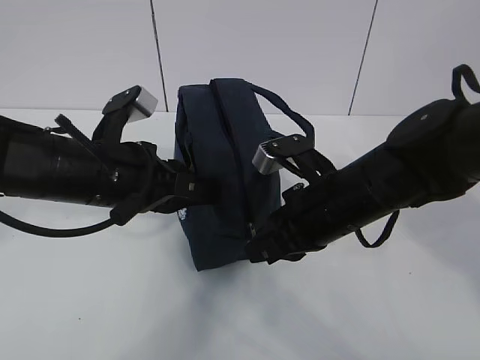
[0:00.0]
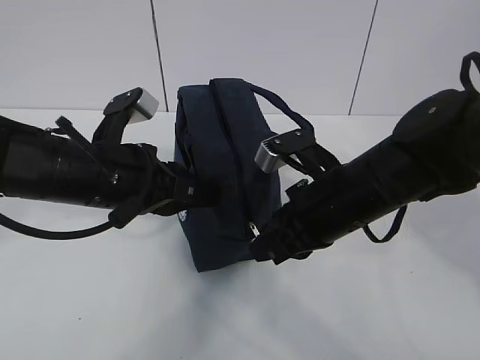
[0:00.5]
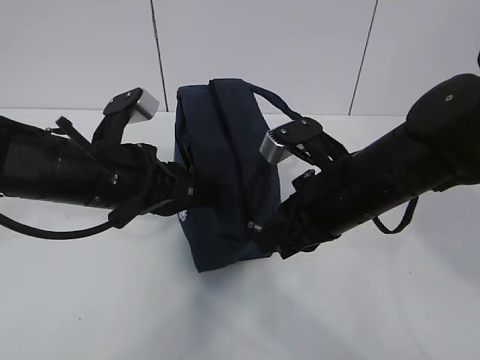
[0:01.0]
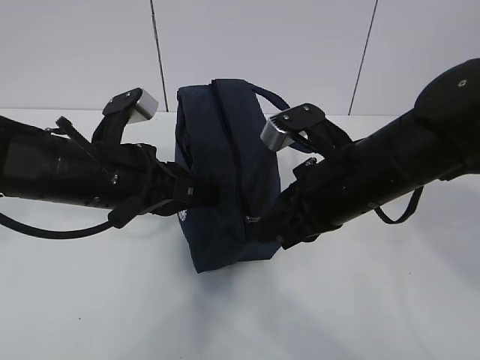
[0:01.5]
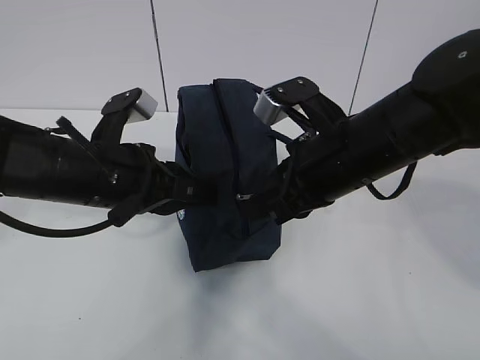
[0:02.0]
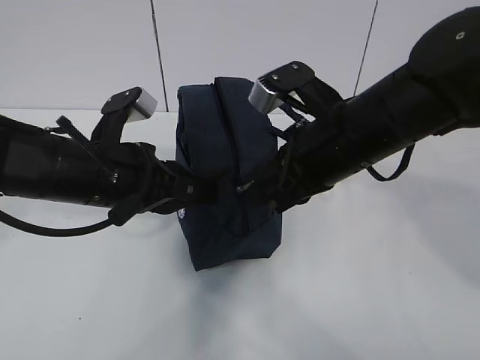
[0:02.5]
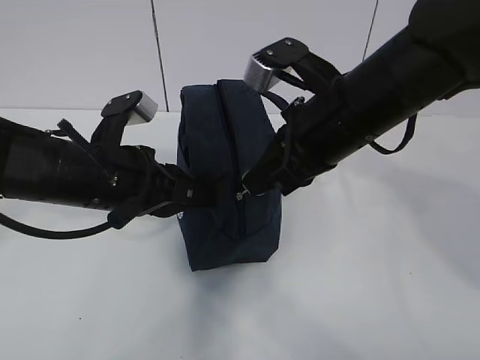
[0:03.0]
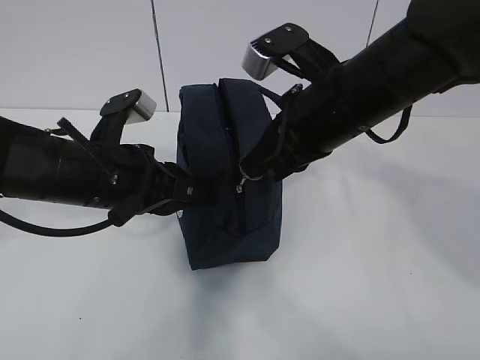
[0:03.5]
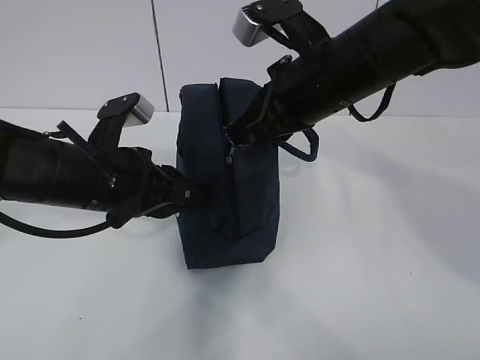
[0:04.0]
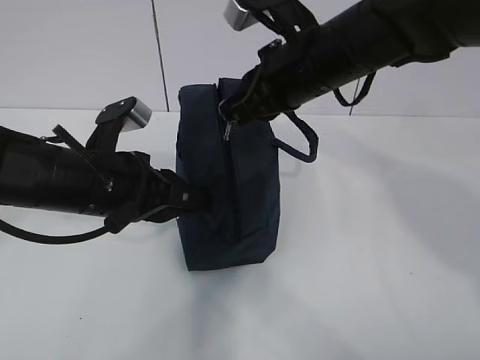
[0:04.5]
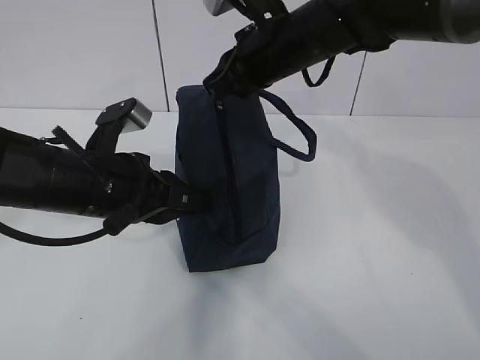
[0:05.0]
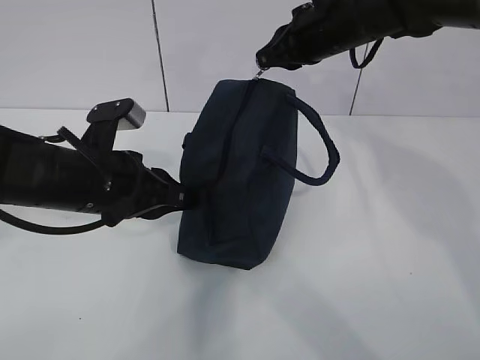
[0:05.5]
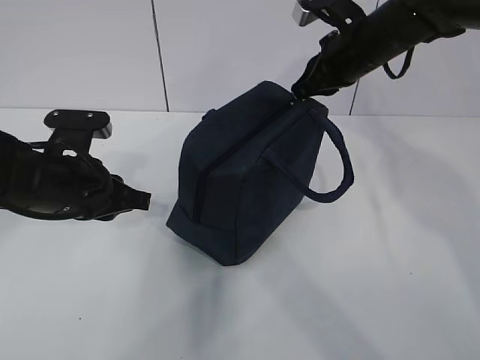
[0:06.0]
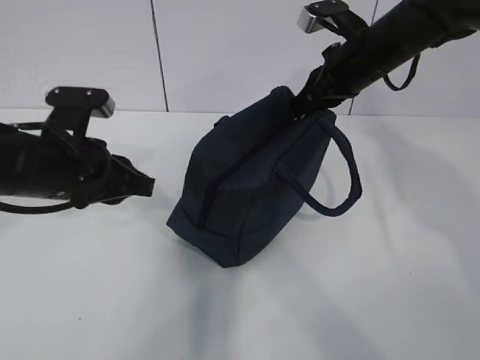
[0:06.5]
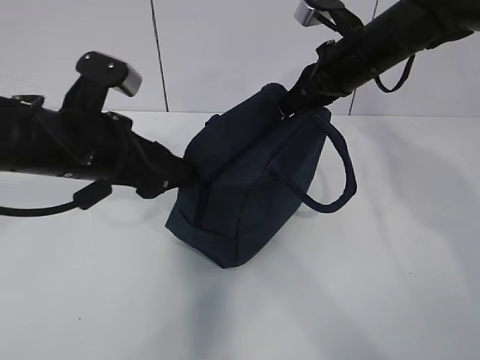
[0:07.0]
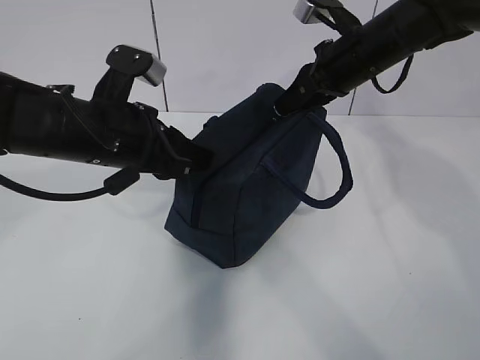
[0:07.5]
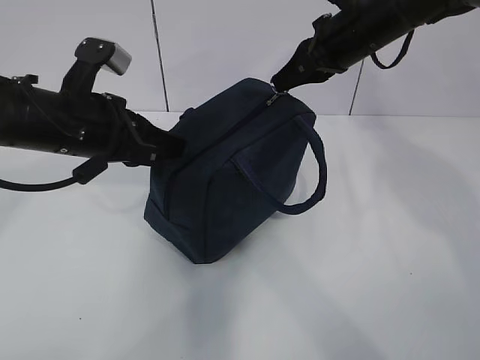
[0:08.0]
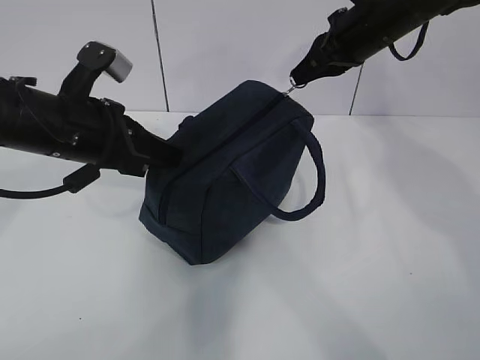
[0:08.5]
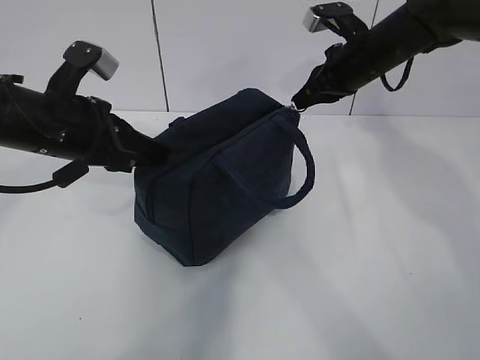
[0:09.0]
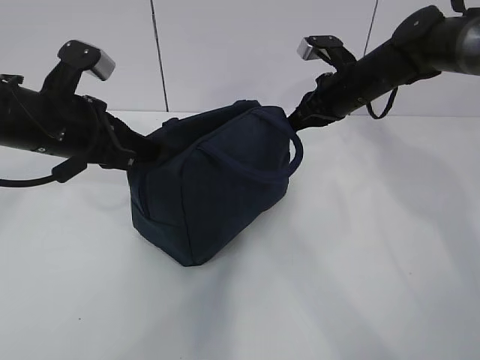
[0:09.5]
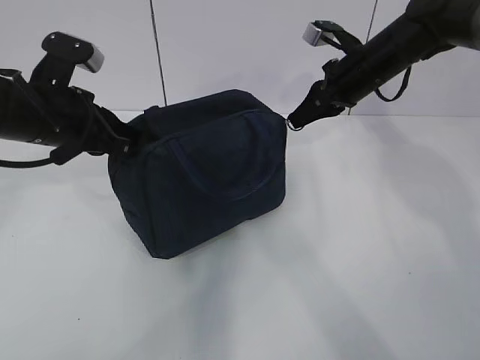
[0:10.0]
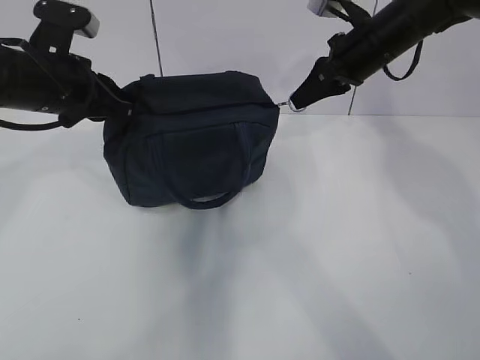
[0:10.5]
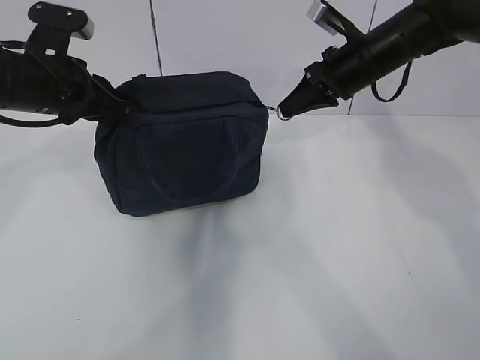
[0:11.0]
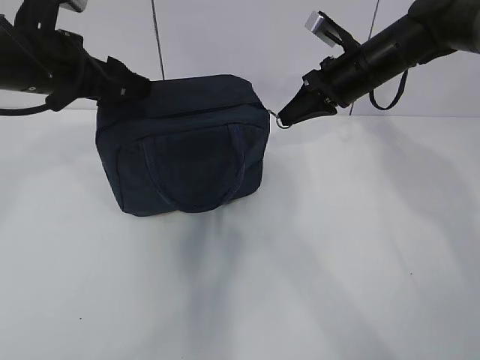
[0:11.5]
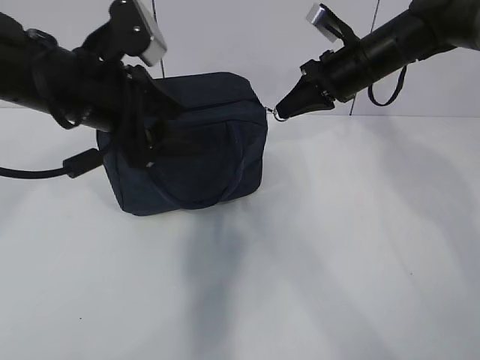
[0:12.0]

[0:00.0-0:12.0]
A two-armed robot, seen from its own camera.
Step, 0:00.0 to 0:04.0: Pull the zipper with your right hand.
0:00.0 to 0:02.0: The right gripper heads upward, covering about 5 cm.
0:02.0 to 0:04.0: The right gripper goes some 5 cm upward.
0:04.0 to 0:06.0: The left gripper ends up approximately 5 cm from where it was. The right gripper goes some 15 cm forward and to the right.
0:06.0 to 0:08.0: The left gripper moves upward, approximately 5 cm, and opens, then closes once more.
0:08.0 to 0:10.0: The right gripper goes some 5 cm downward.
0:10.0 to 0:12.0: The left gripper shifts roughly 5 cm to the right, and opens its fingers.

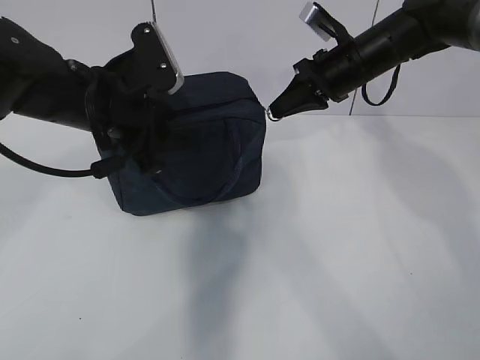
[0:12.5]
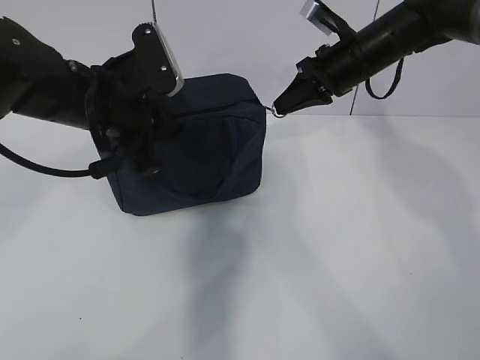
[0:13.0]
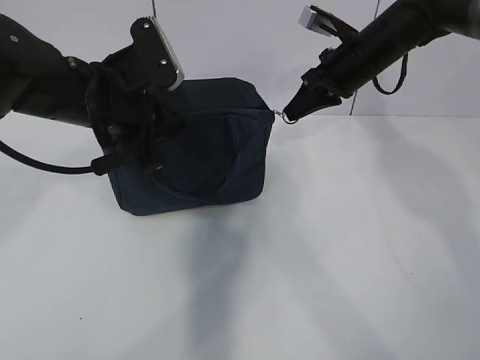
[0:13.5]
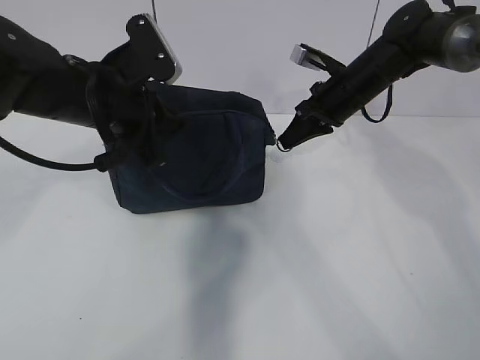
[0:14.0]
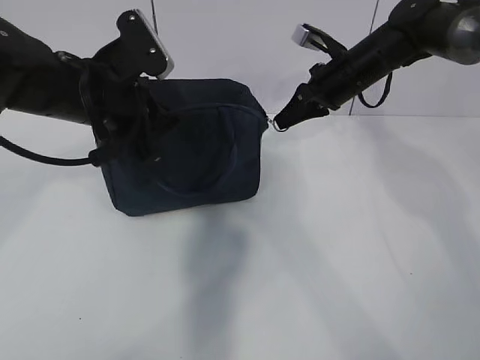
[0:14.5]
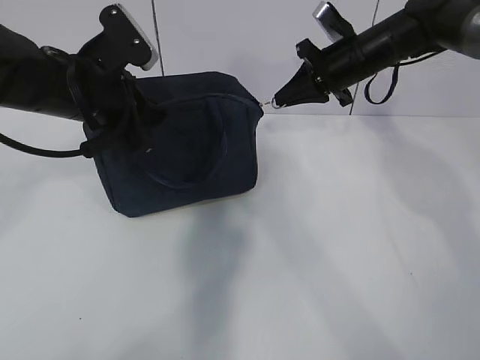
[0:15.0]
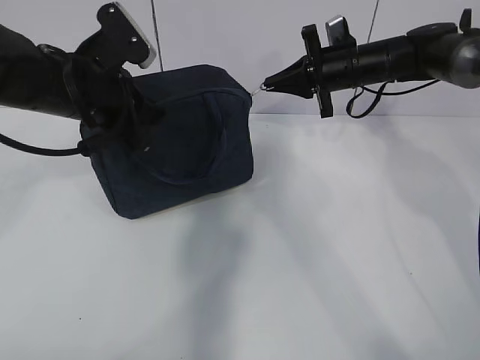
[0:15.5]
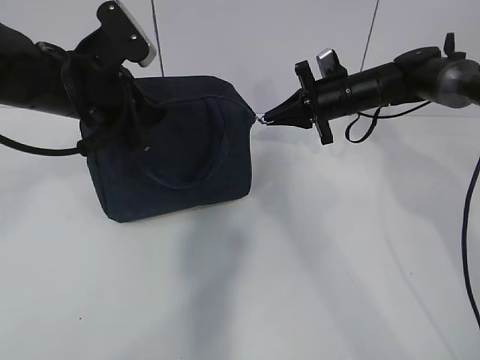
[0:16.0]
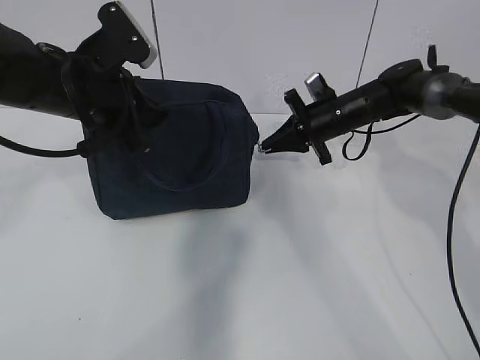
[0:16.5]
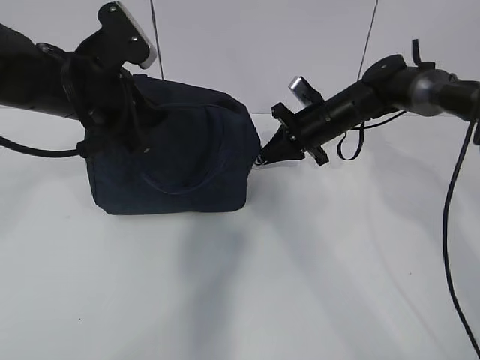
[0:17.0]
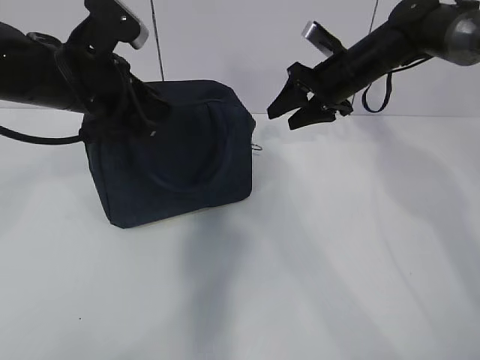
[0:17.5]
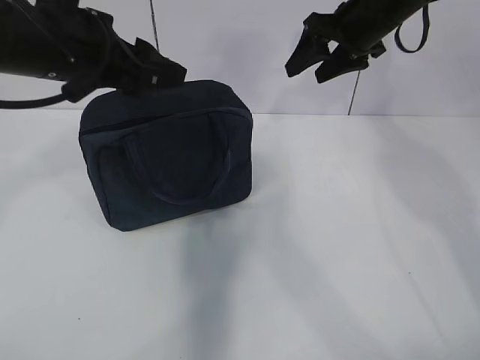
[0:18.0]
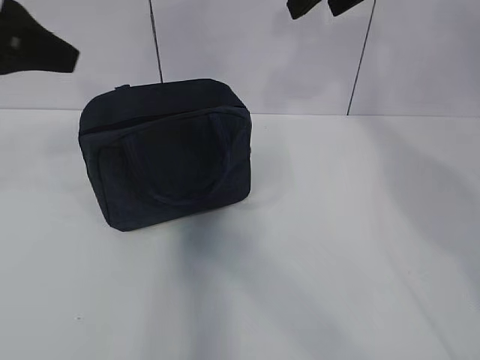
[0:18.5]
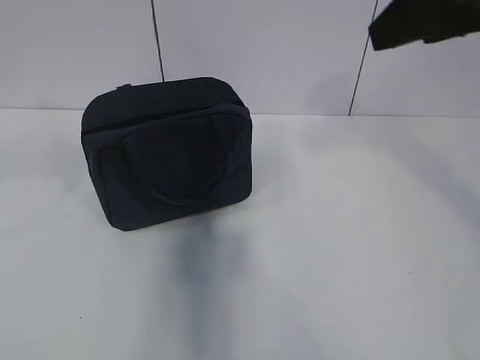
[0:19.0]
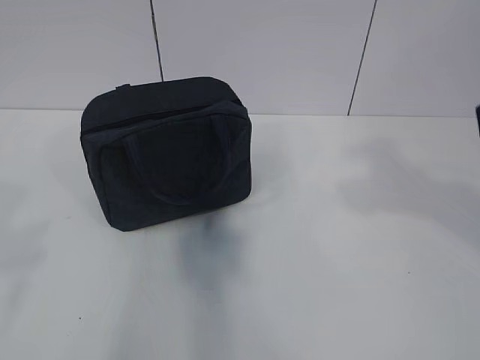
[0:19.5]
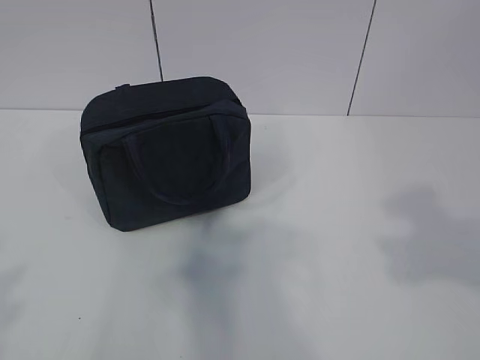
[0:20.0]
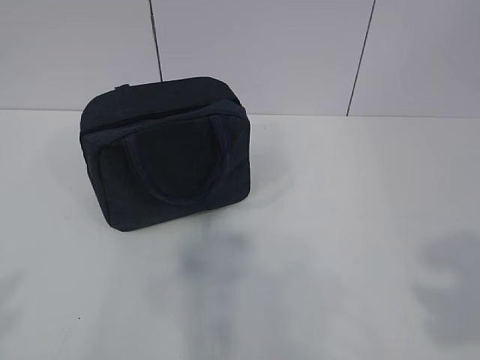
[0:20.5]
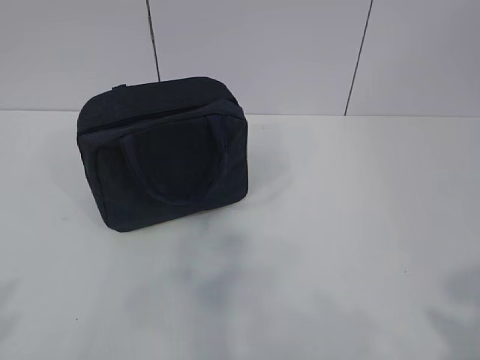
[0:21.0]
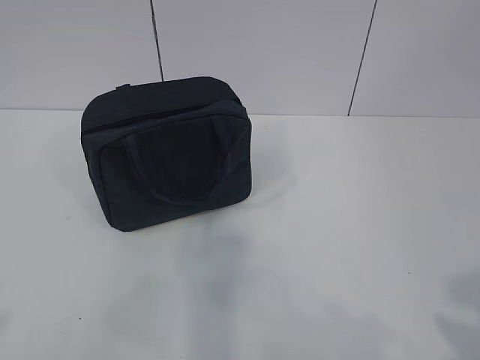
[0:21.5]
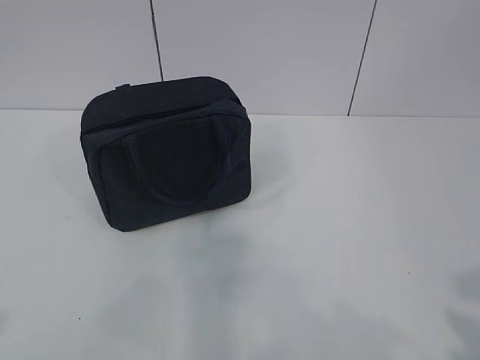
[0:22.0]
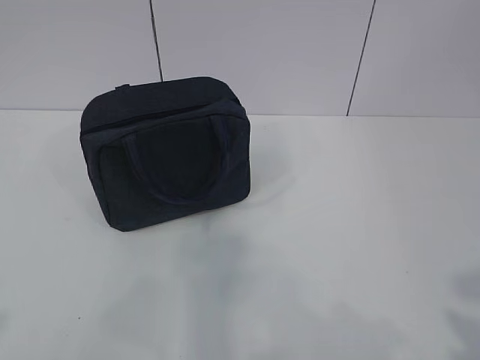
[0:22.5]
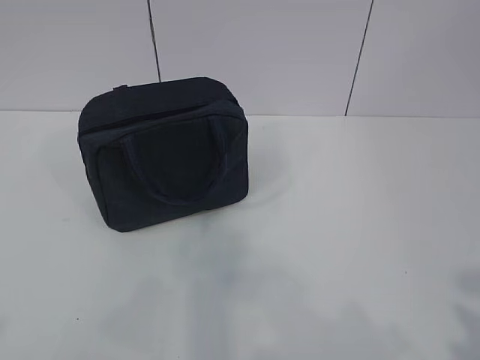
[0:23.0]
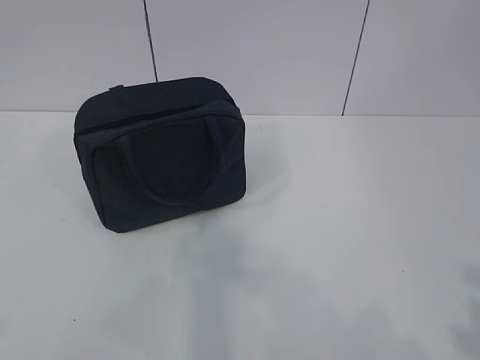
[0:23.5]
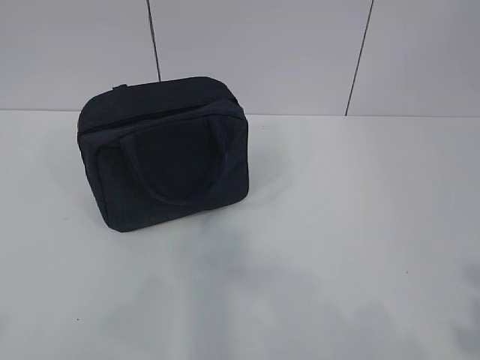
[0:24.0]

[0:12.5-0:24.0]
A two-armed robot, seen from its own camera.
0:12.5 to 0:14.5: The left gripper closes up.
0:14.5 to 0:16.5: The right gripper shifts some 10 cm downward.
0:16.5 to 0:18.5: The left gripper travels upward, backward and to the left by some 15 cm, and opens its fingers, while the right gripper heads upward and backward, covering roughly 30 cm, and opens its fingers.
0:18.5 to 0:20.0: The grippers both shift backward by about 30 cm.
0:22.0 to 0:24.0: There are only small adjustments of the grippers.

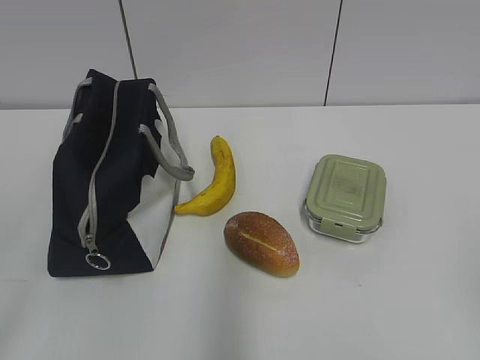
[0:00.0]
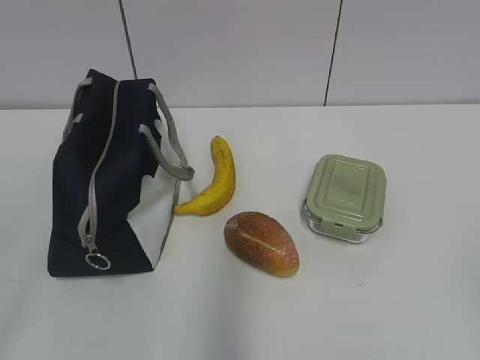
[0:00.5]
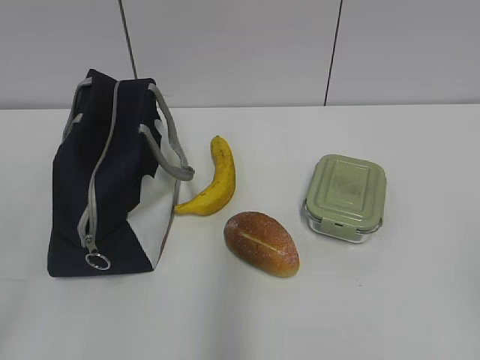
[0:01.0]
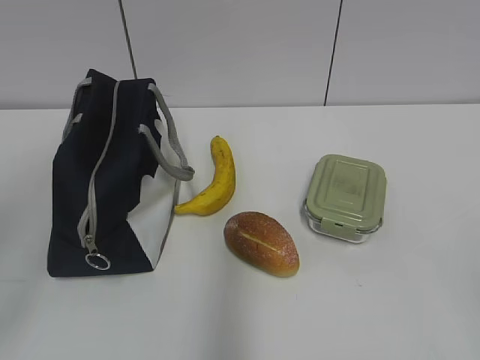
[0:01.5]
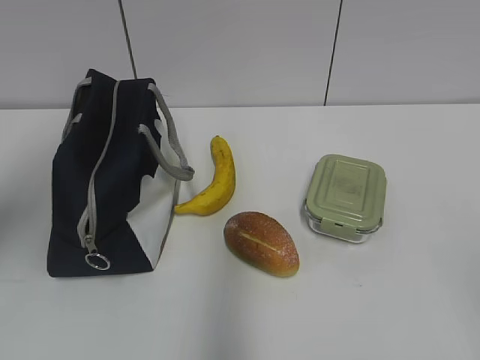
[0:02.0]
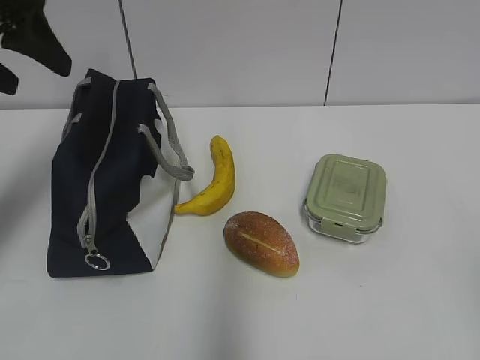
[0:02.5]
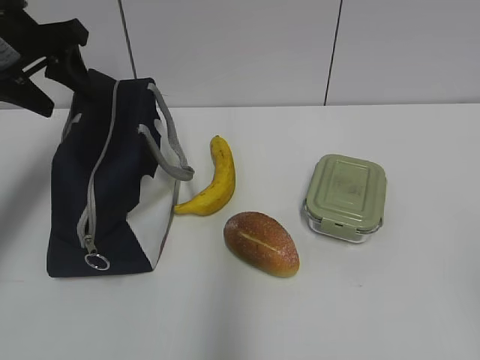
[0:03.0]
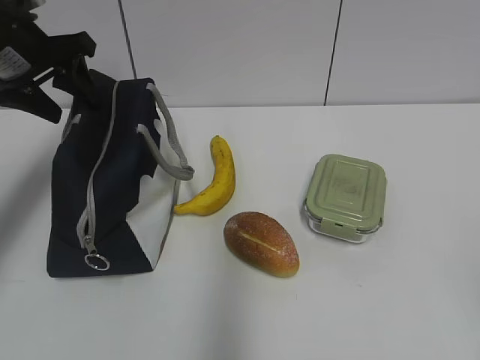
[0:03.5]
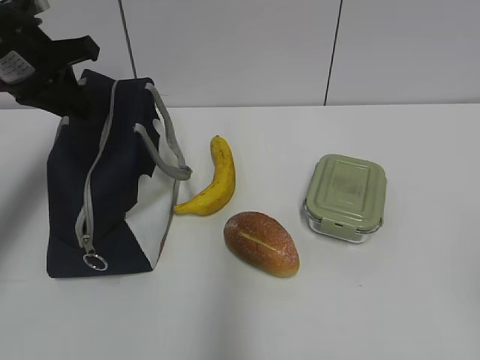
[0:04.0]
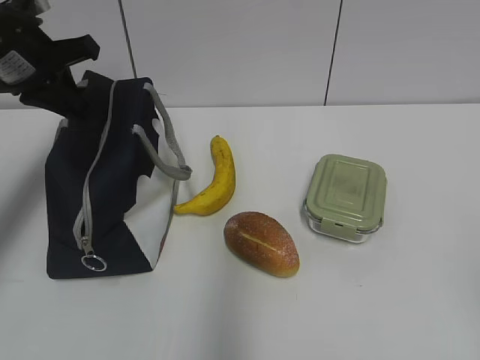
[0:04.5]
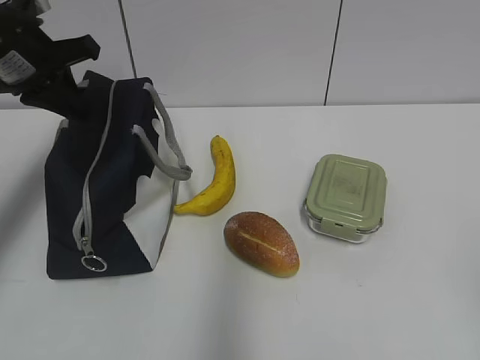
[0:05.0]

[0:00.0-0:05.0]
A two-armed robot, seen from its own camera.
0:02.5 to 0:05.0: The left gripper heads downward and forward, covering some 10 cm, and closes.
